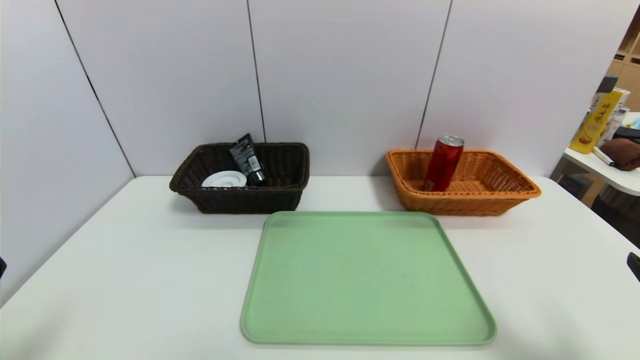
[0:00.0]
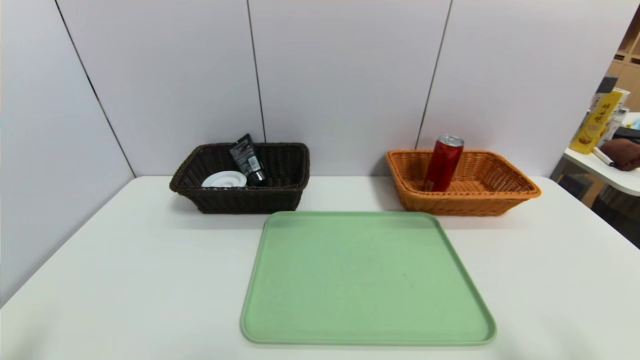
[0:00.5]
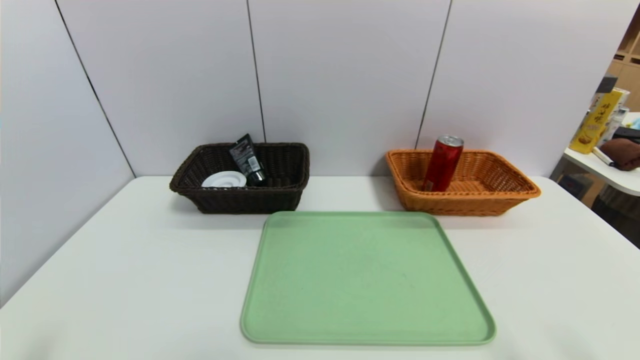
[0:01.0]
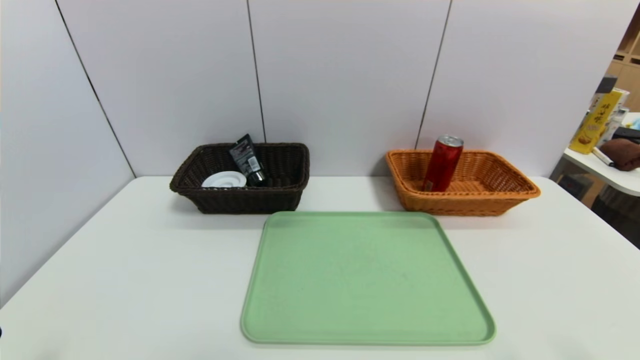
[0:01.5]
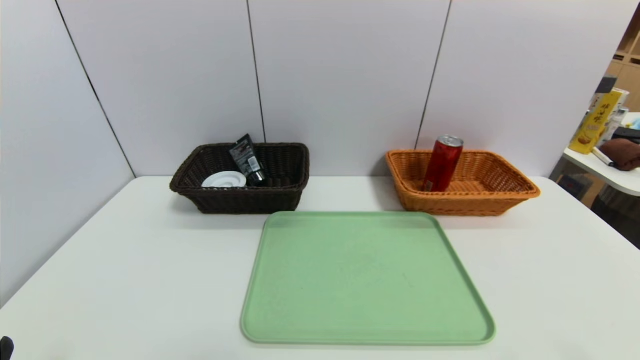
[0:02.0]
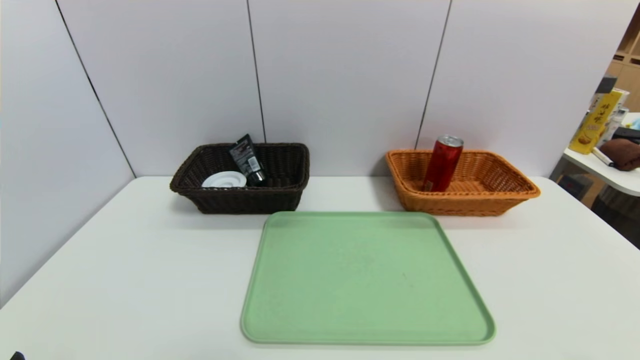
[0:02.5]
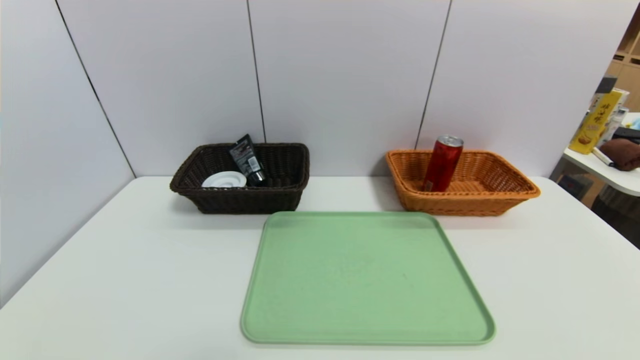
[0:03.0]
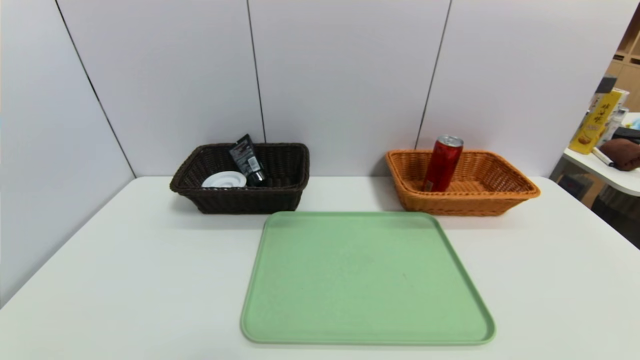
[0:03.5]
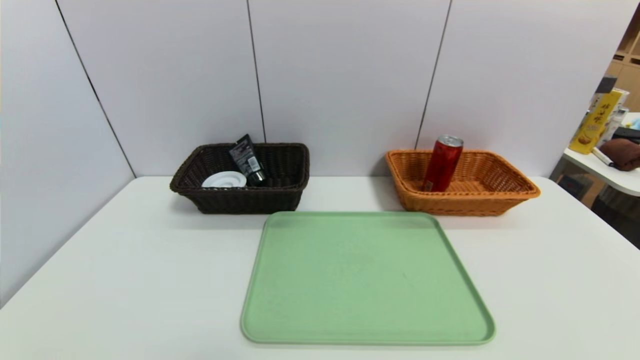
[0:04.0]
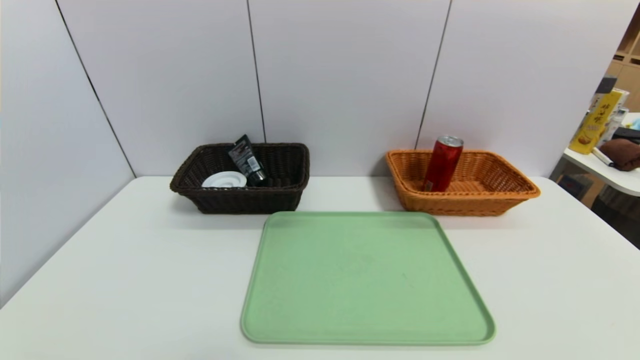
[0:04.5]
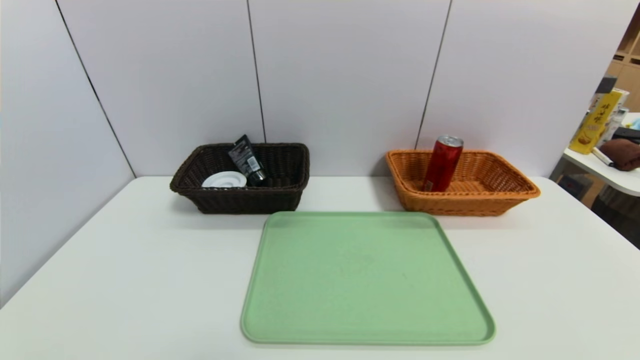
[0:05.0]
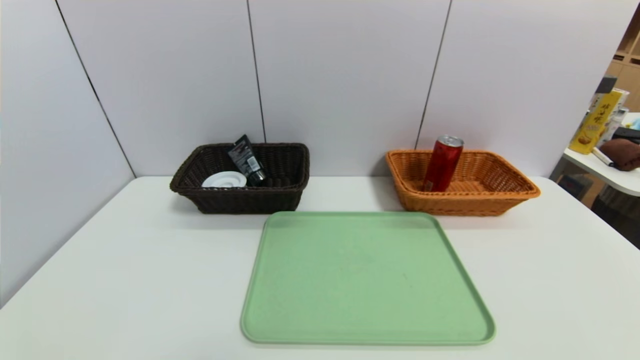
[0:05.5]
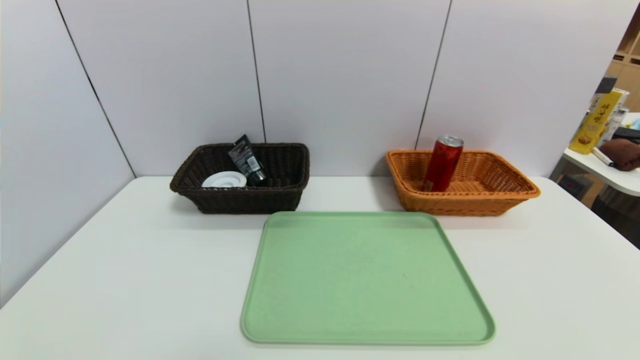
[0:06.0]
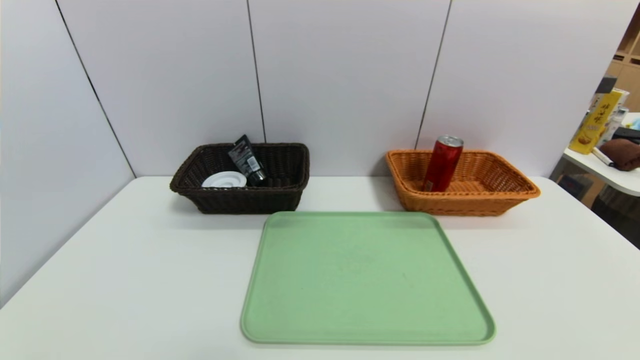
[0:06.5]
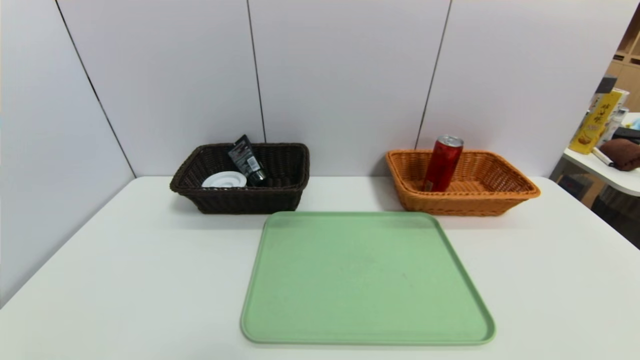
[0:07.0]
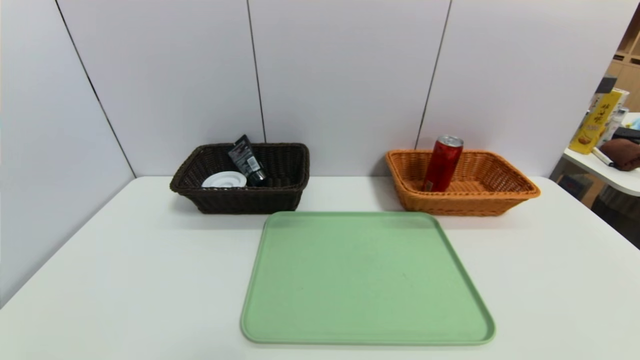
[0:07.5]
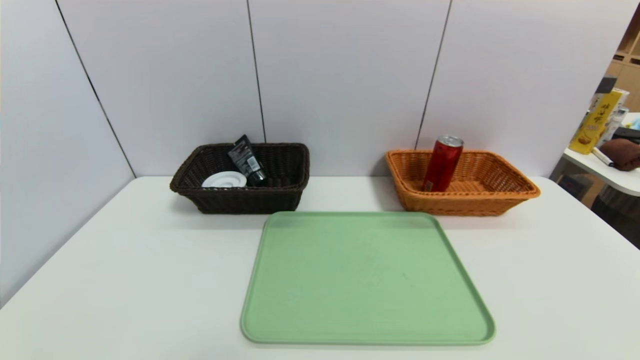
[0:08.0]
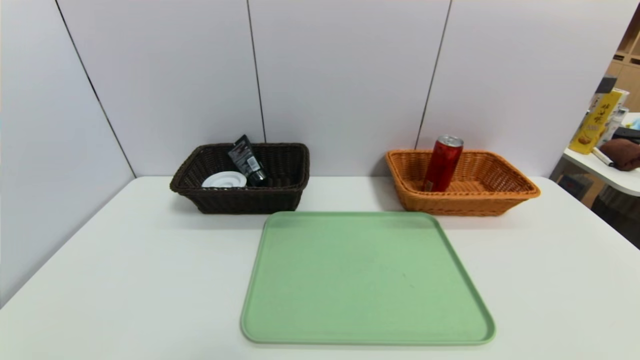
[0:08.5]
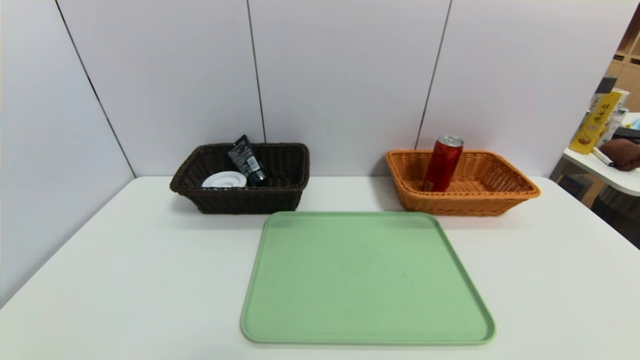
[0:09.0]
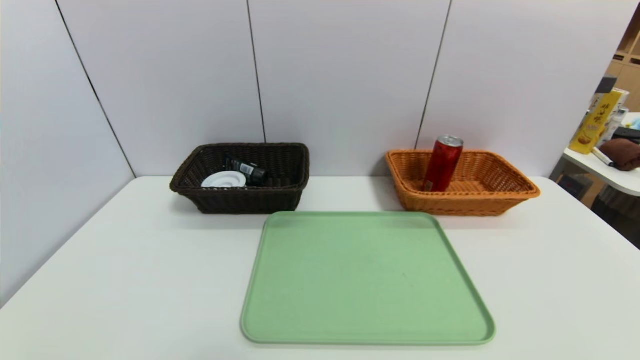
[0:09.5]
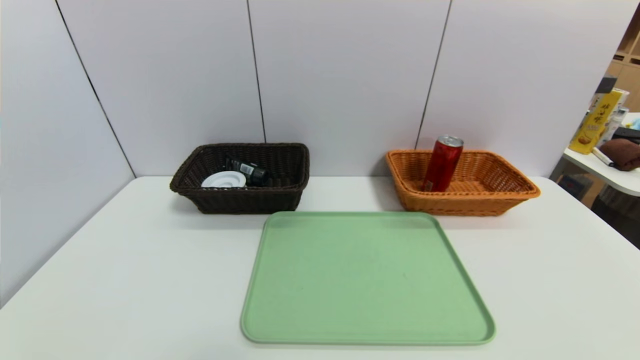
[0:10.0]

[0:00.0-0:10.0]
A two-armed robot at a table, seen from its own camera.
Task of the whole recording: place the food in the right basket with the right gripper, and place the non food items in the left basket with the left gripper.
0:00.0 to 0:02.0: The right gripper goes roughly 10 cm backward and downward.
0:06.0 to 0:10.0: Neither gripper changes place.
